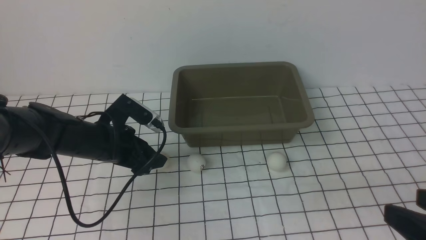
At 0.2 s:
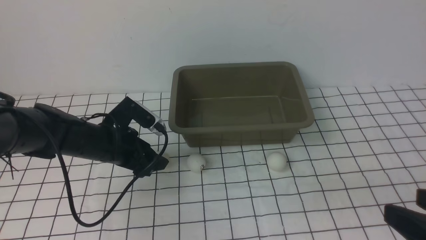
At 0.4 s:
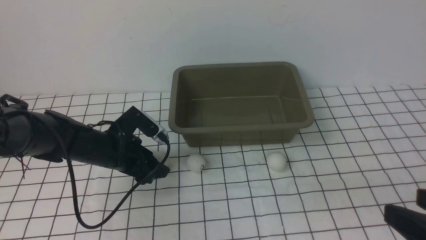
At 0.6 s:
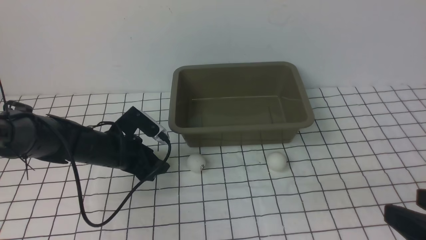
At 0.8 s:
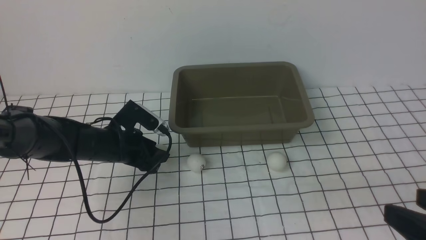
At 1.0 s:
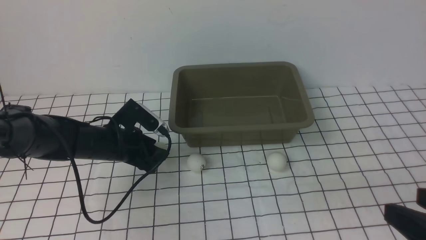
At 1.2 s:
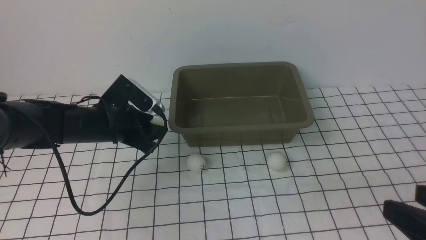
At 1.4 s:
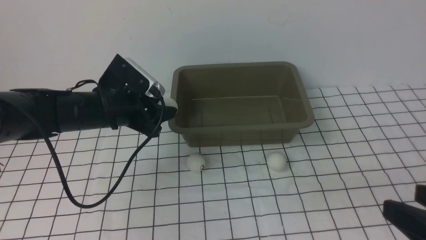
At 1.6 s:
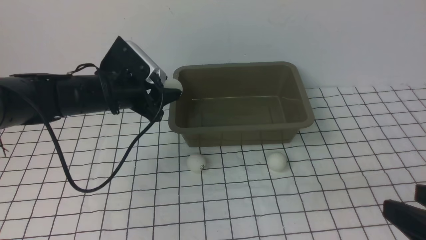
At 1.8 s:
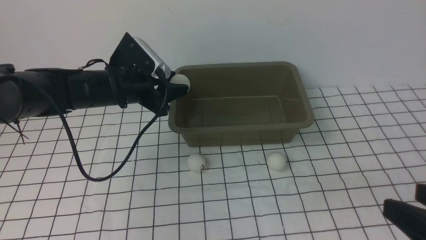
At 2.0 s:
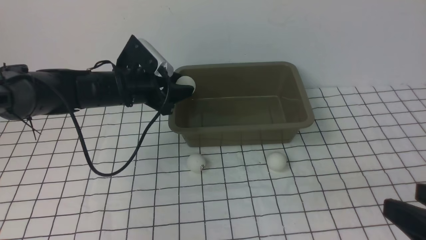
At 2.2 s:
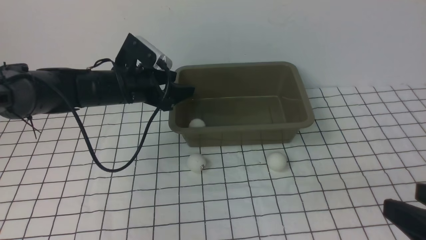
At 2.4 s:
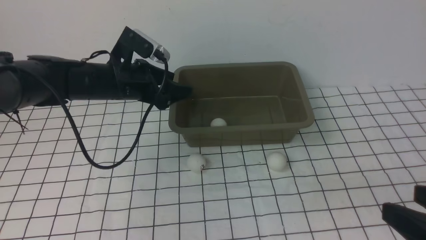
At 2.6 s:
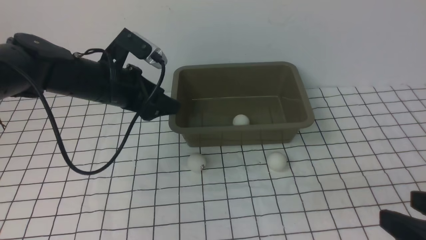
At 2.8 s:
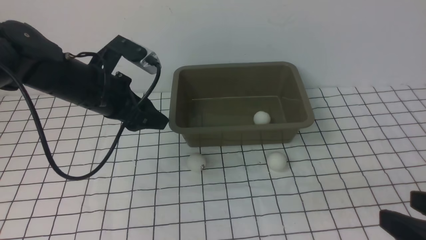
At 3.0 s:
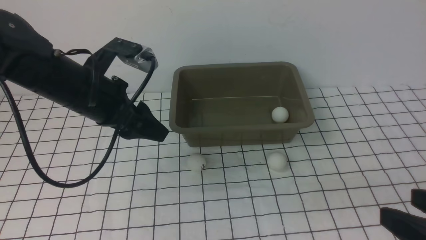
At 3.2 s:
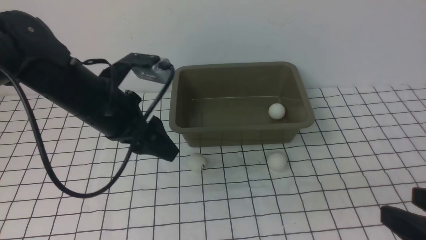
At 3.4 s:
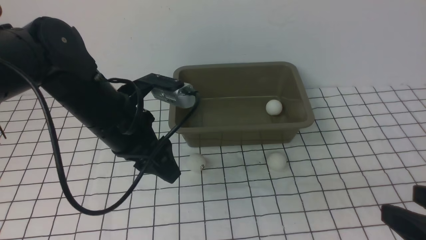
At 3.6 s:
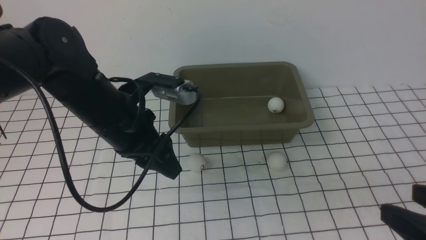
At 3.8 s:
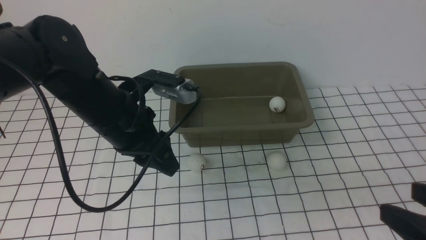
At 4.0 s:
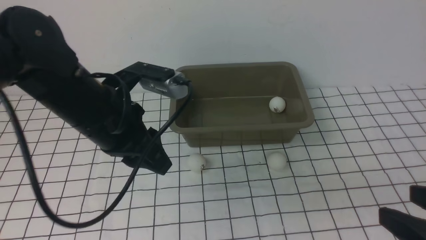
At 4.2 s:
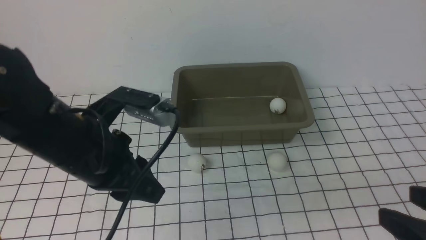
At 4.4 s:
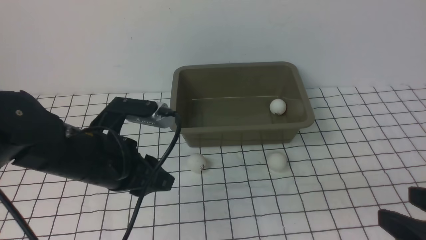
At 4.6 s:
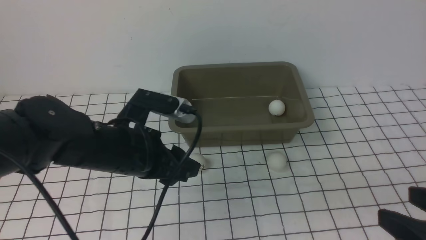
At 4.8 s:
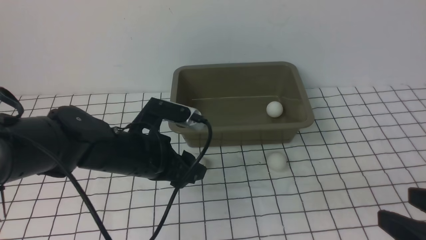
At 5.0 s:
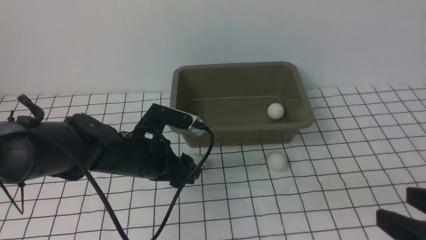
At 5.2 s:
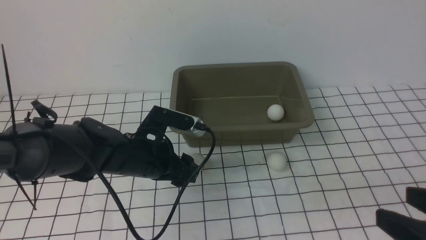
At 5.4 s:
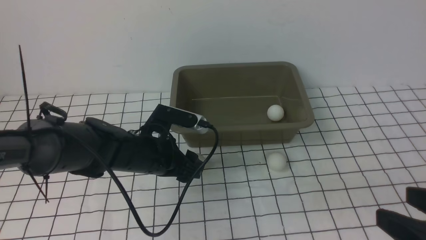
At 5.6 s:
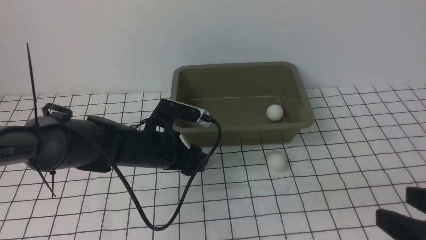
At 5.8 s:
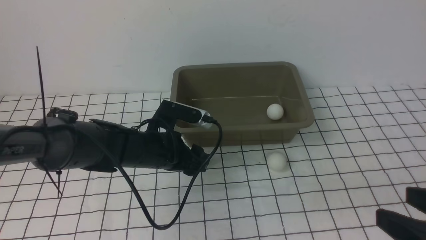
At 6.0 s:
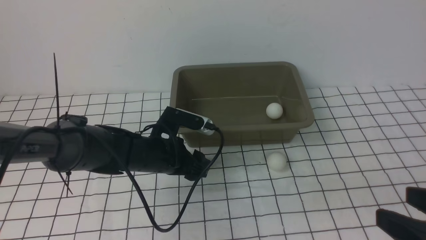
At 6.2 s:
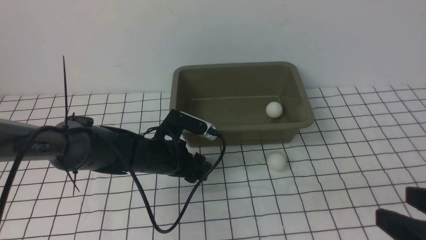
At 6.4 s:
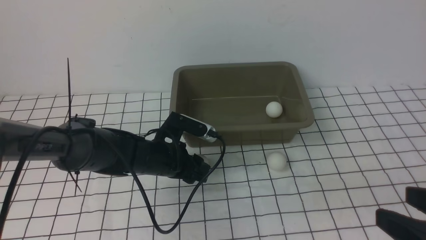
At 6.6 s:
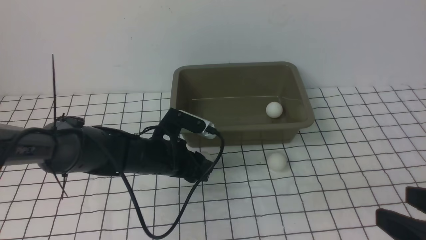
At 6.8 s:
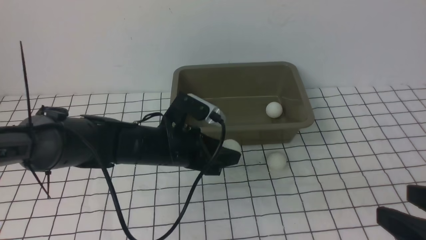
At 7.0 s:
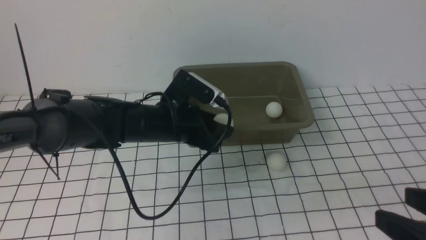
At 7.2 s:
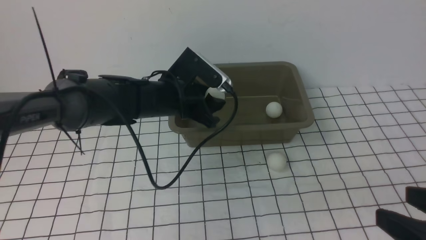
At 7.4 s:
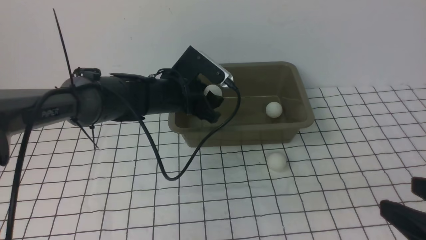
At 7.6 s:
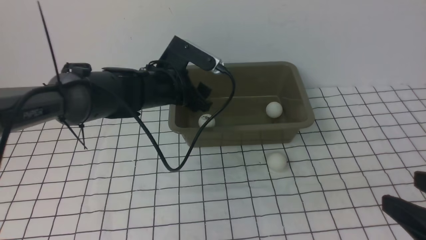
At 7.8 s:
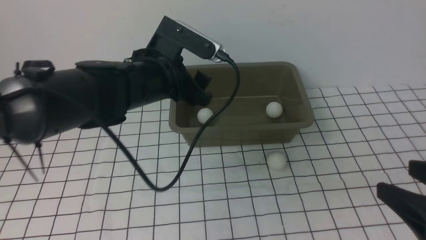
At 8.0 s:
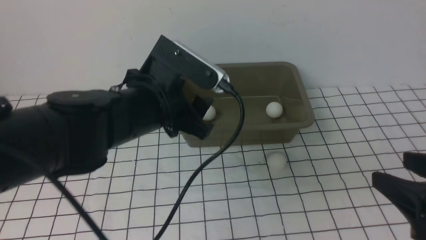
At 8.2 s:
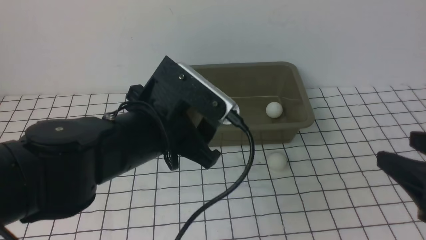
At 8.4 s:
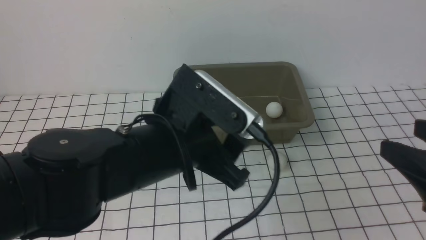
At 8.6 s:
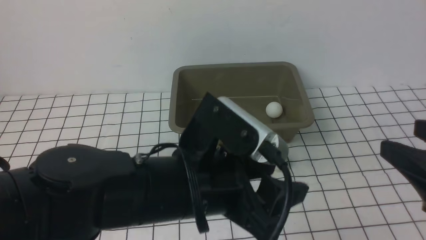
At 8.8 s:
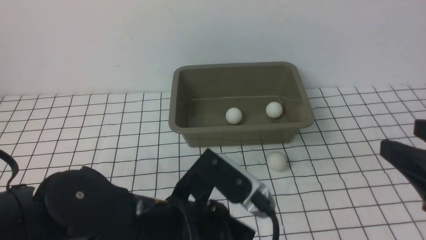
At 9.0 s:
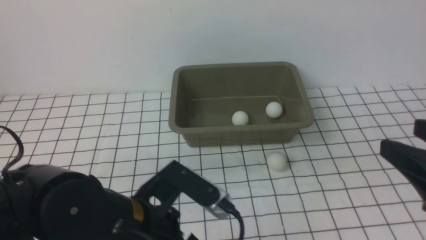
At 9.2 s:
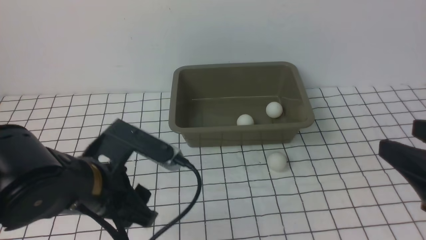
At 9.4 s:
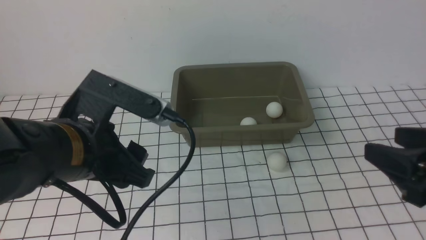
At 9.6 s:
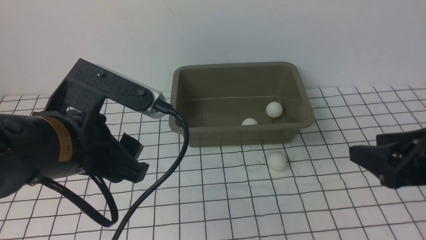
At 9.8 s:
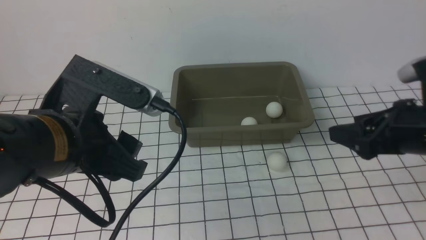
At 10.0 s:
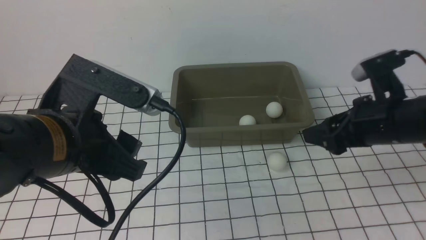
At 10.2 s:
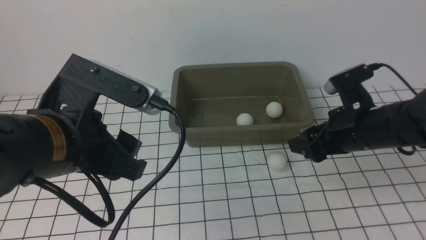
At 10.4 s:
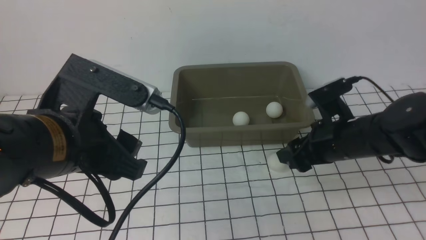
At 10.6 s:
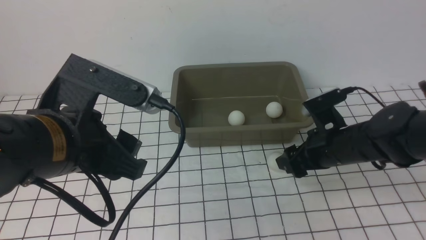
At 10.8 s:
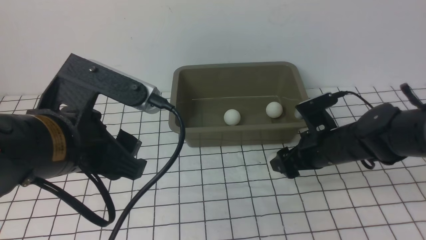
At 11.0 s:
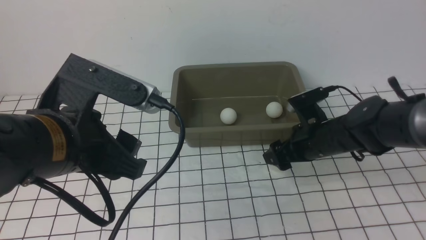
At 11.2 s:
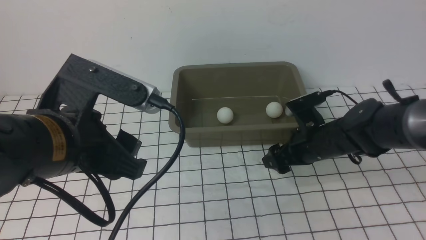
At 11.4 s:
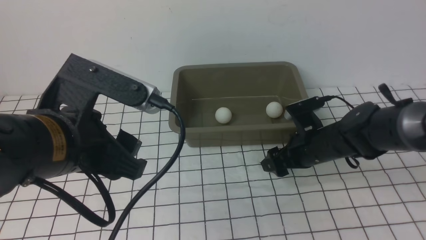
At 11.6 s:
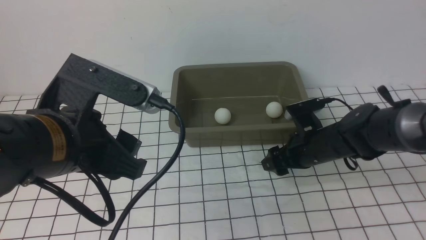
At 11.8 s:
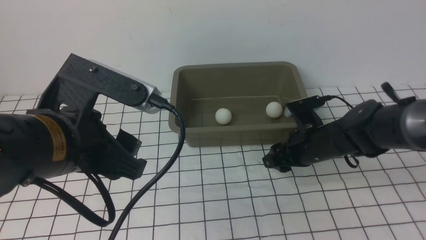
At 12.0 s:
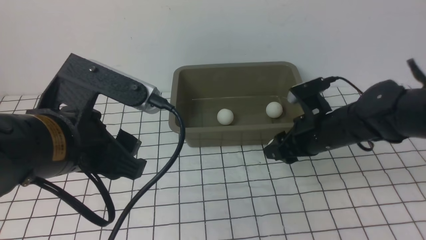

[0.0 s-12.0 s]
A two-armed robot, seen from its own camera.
Step, 1.6 to 2.2 s: use the left arm to put the table tennis ball into the box.
Step, 2.4 to 6.8 s: use the left arm to clamp the table tennis ball closest to it.
Step, 7.0 to 7.6 s: use the left arm to put the table tennis ball into the box.
0.0 to 1.6 s: The left gripper goes some 10 cm upward, and closes.
1.6 to 3.0 s: The left gripper heads upward and backward, covering some 5 cm, and opens.
3.0 to 4.4 s: The left gripper is displaced backward by approximately 10 cm, and closes.
4.4 to 6.0 s: The left gripper goes approximately 15 cm downward and forward, and opens.
6.0 to 7.6 s: The left gripper travels upward and forward by roughly 10 cm, and closes and opens again.
7.6 to 9.0 s: The right gripper ends up roughly 5 cm from where it was; the left gripper goes about 20 cm backward.
9.0 to 10.4 s: The left gripper travels upward by some 10 cm. Meanwhile the right gripper travels forward, downward and to the left by roughly 20 cm.
10.4 to 12.0 s: The right gripper closes.

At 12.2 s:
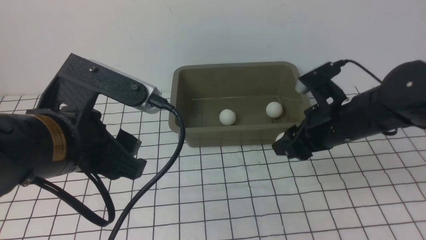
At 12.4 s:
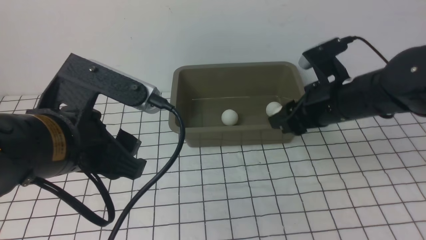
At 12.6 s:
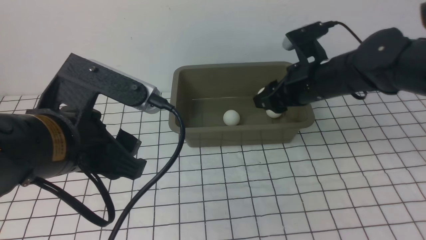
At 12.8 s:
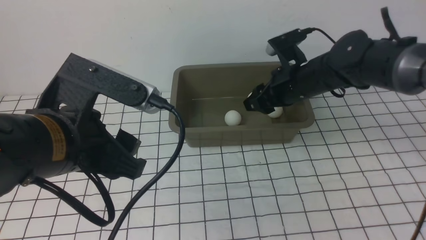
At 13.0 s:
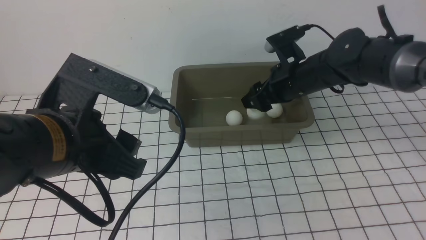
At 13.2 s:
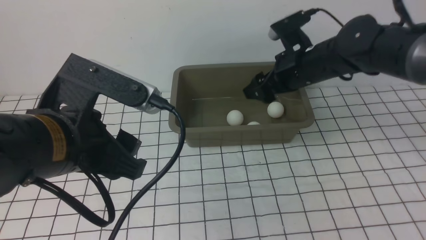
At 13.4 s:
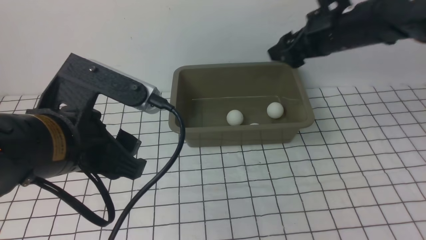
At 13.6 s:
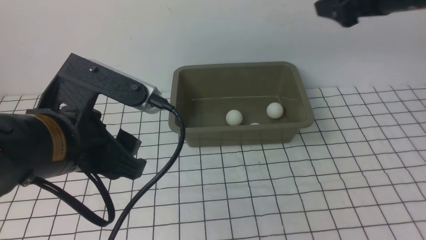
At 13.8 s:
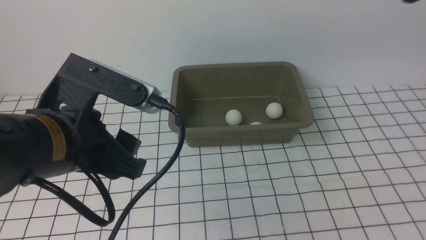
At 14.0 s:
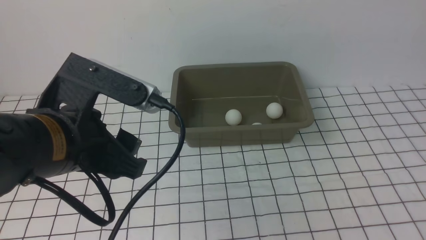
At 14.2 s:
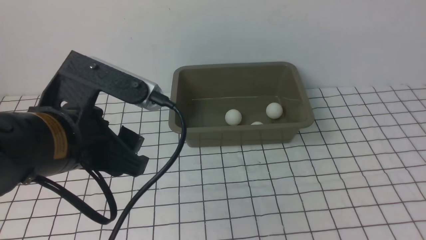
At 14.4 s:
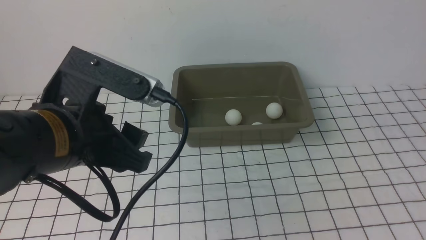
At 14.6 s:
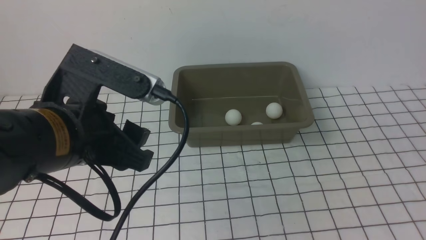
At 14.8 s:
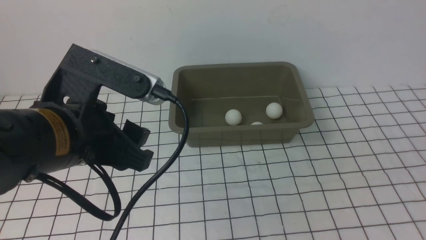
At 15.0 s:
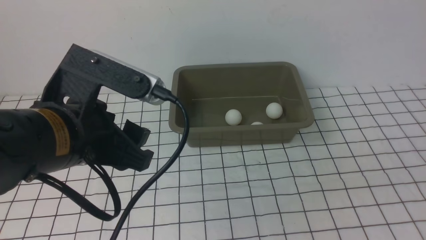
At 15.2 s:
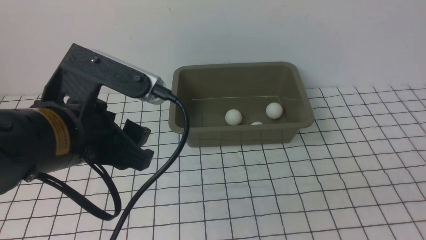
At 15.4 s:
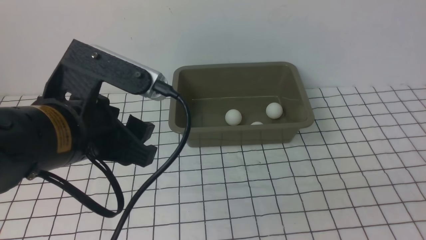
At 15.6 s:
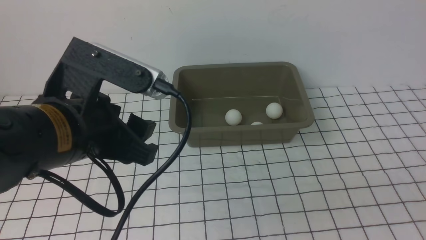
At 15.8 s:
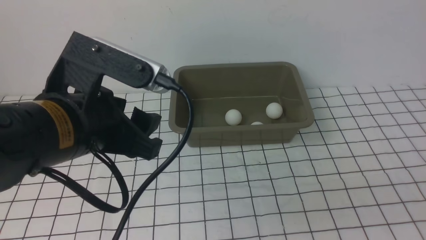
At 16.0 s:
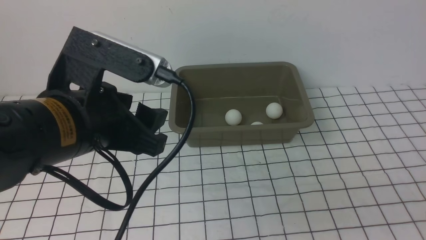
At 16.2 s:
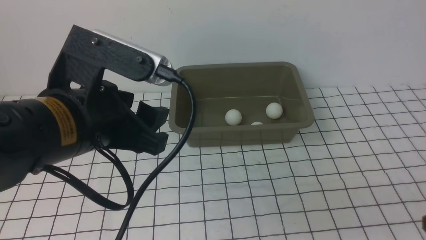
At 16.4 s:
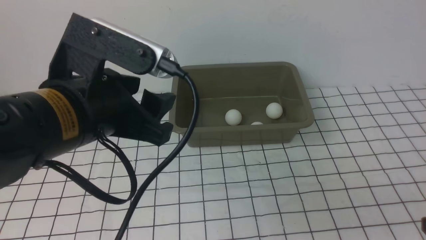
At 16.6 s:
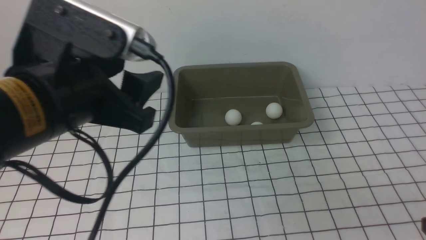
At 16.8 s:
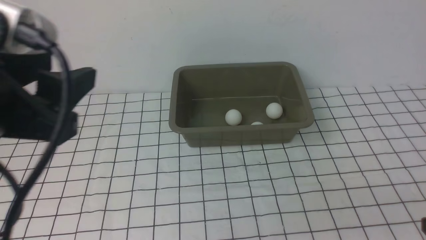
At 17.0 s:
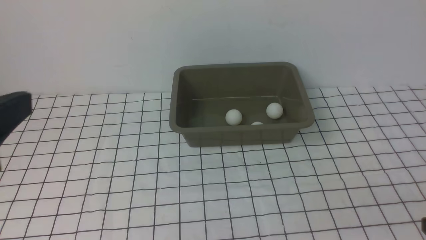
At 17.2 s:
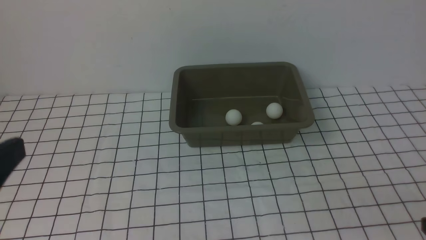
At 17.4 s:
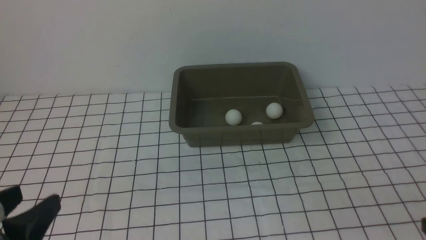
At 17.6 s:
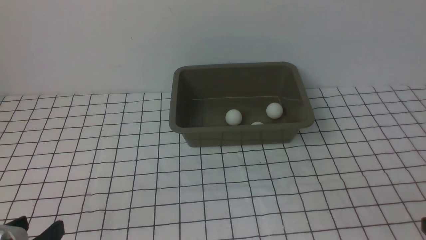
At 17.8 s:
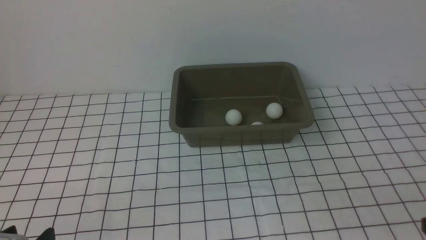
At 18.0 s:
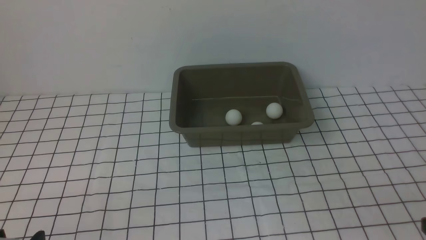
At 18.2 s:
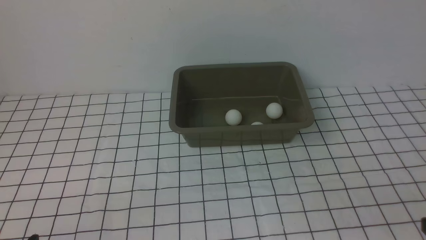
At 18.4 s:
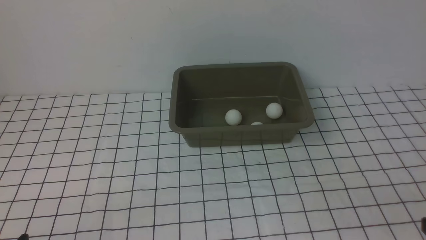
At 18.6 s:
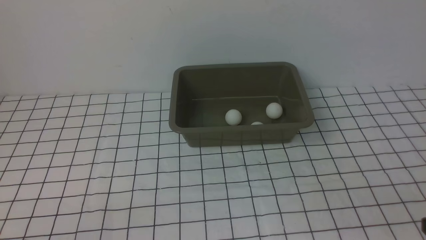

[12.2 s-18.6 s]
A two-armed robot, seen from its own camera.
Step, 12.2 to 13.2 s: use the right arm to put the table tennis ball into the box.
12.2 to 13.8 s: The right gripper moves upward and to the right, approximately 25 cm, and opens up.
13.8 to 15.4 s: The right gripper is displaced backward and downward by some 30 cm, and closes.
15.4 to 17.0 s: The left gripper is displaced backward, to the left and upward by about 15 cm.
17.0 to 18.6 s: The left gripper moves downward, approximately 20 cm.
